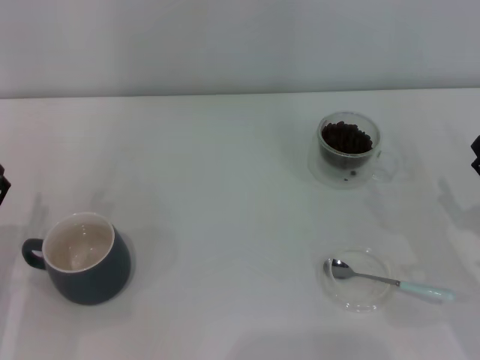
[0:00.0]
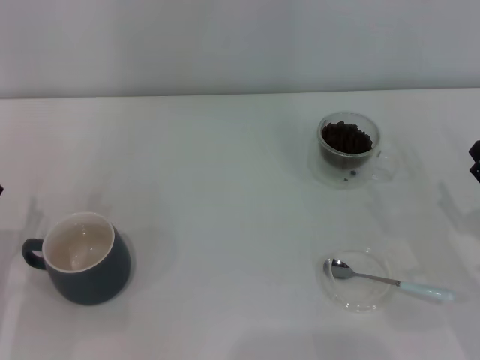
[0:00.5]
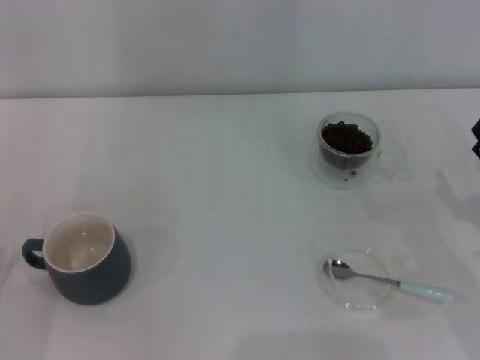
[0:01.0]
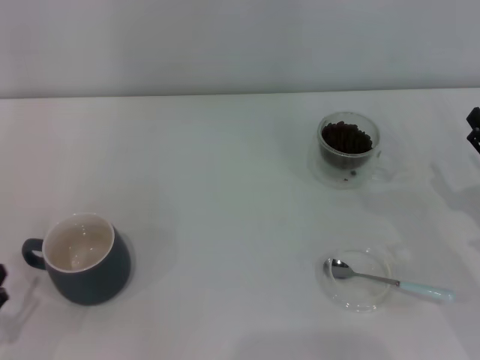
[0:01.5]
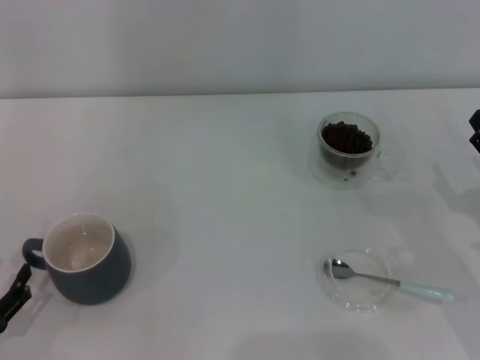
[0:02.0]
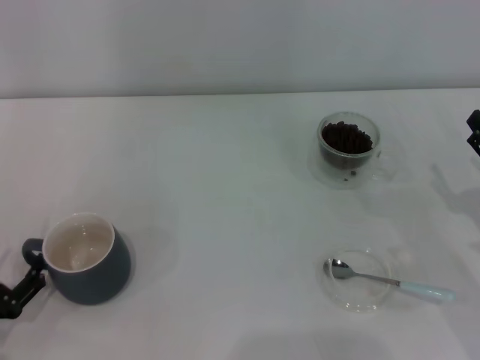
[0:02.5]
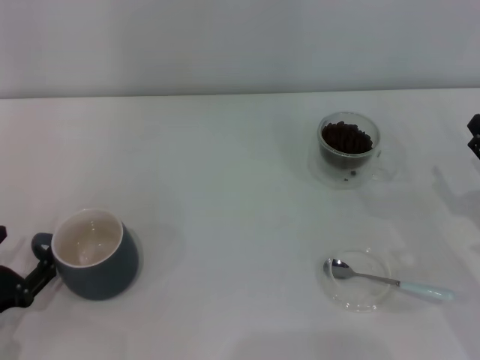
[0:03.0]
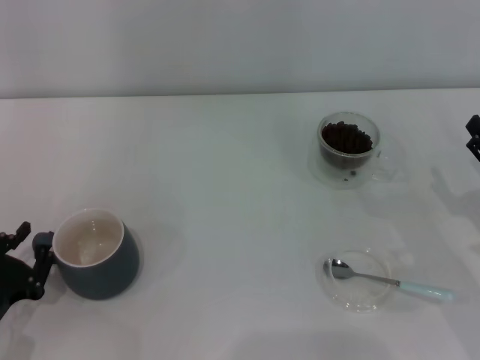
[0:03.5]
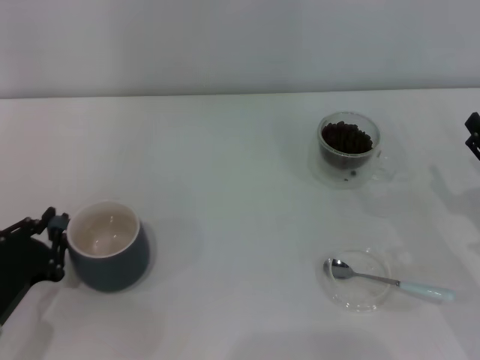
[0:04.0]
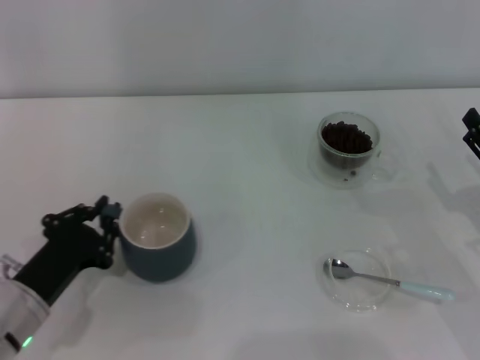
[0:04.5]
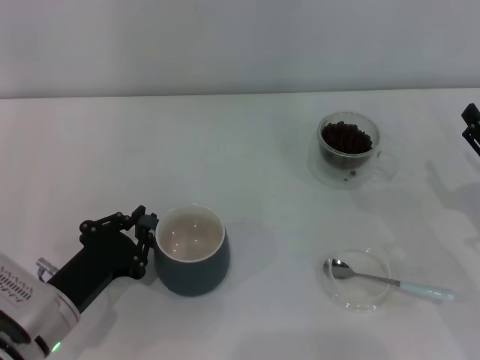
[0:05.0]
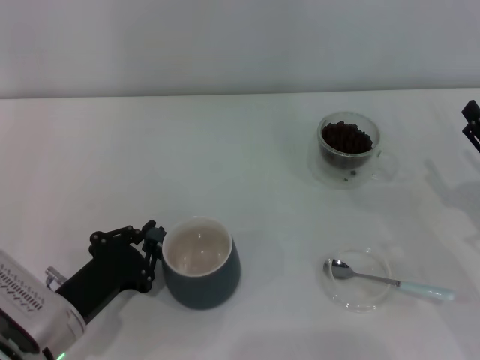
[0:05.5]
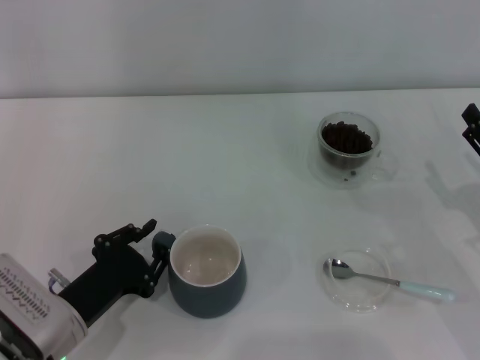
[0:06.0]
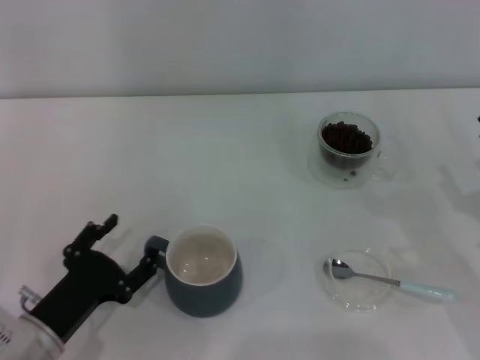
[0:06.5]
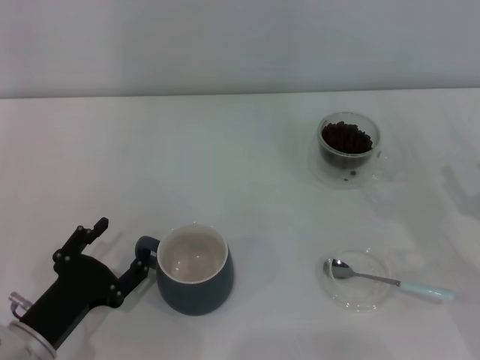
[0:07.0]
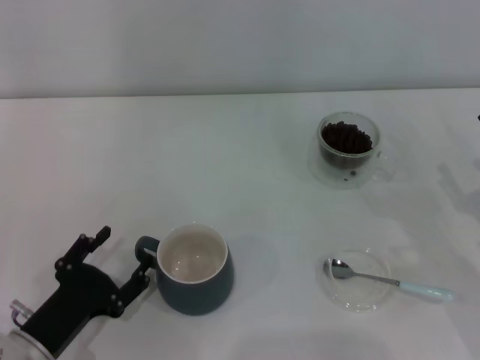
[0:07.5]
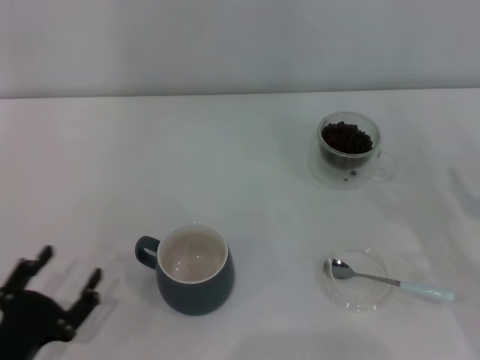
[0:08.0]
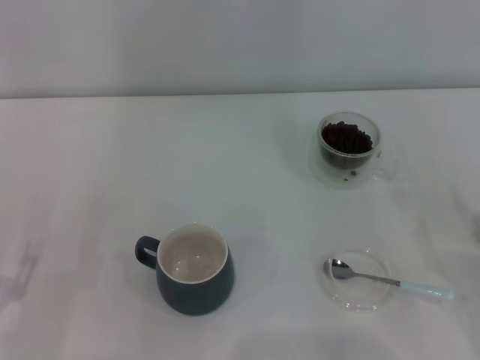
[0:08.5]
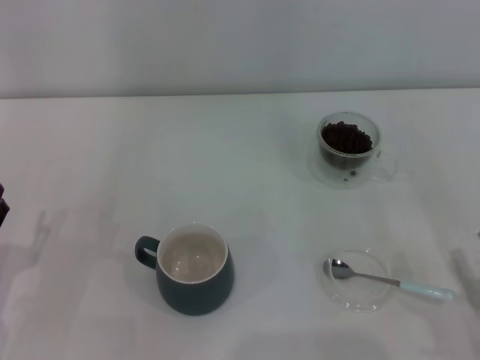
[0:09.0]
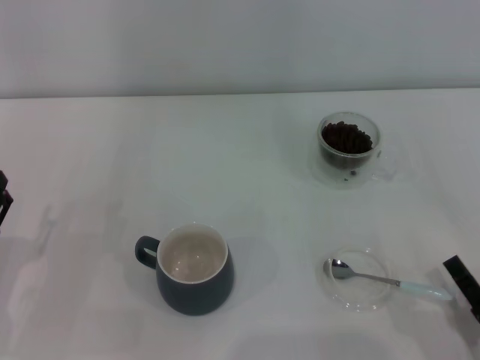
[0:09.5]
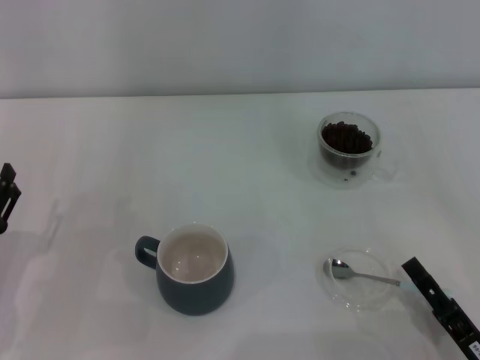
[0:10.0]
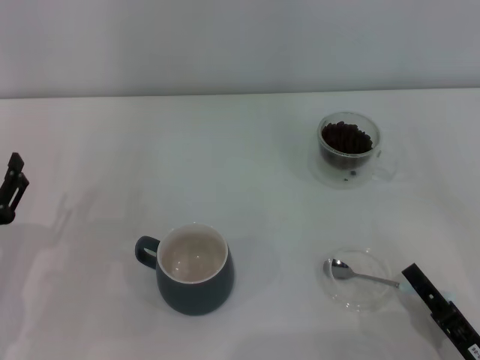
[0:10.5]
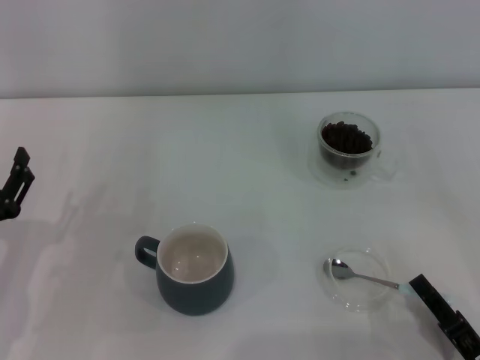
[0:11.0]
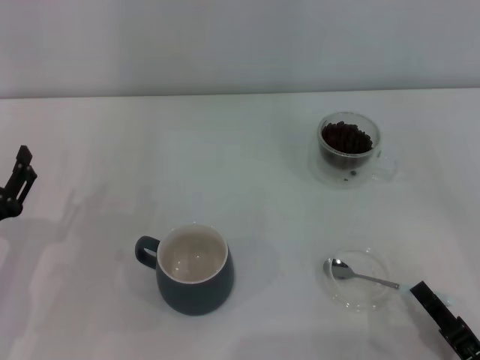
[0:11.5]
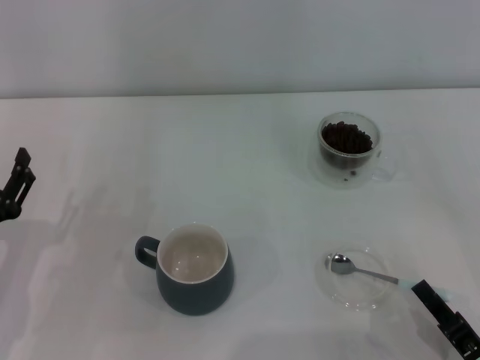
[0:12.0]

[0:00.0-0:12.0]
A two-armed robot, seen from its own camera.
Task of the whole recording: Use a blue spoon to take out the coffee beans from the glass and pour them into the gray cup.
Step, 0:00.0 to 0:07.5: Move the cup to the center of view with the left gripper.
0:00.0 to 0:02.0: The left gripper is displaced backward by about 10 cm.
0:02.0 to 0:04.0: The left gripper is displaced forward by roughly 5 cm, and closes up.
0:04.0 to 0:06.0: The left gripper heads to the right, covering about 5 cm.
0:06.0 to 0:08.0: The left gripper goes roughly 10 cm backward and to the left, and opens.
0:08.0 to 0:10.0: The right gripper moves backward and to the left, roughly 15 cm, while the left gripper heads forward, covering some 5 cm.
0:10.0 to 0:12.0: The right gripper closes its fingers.

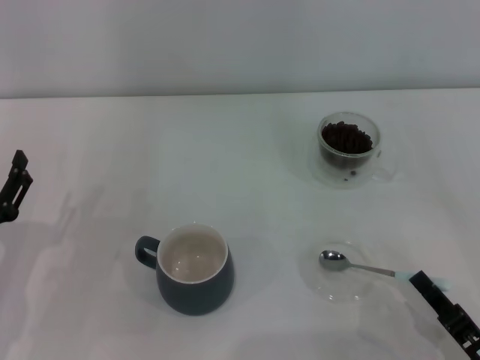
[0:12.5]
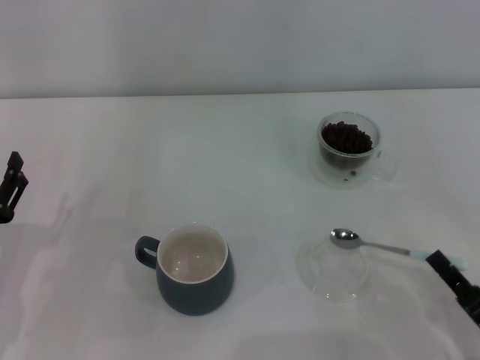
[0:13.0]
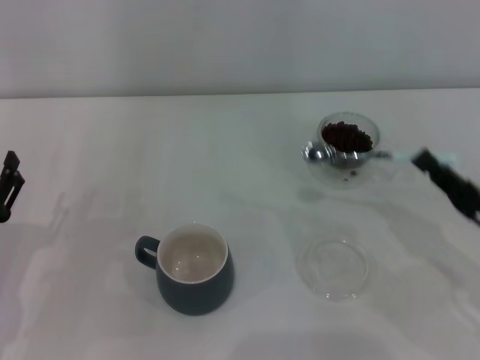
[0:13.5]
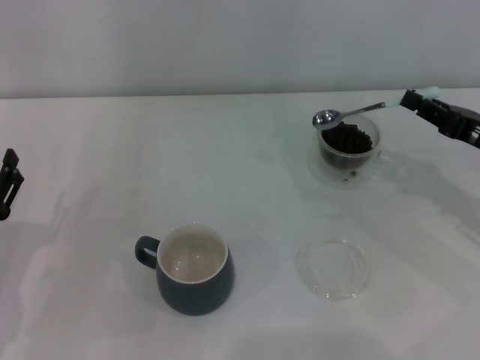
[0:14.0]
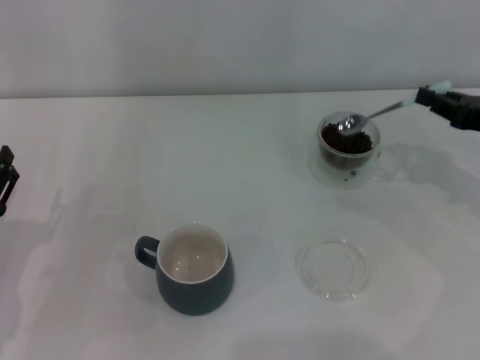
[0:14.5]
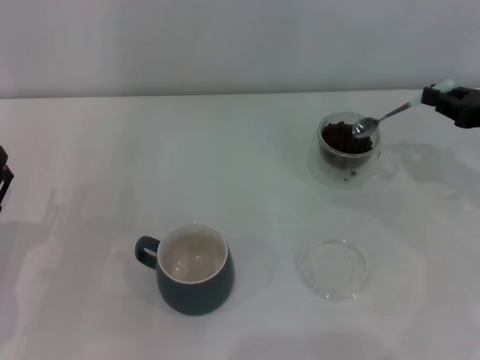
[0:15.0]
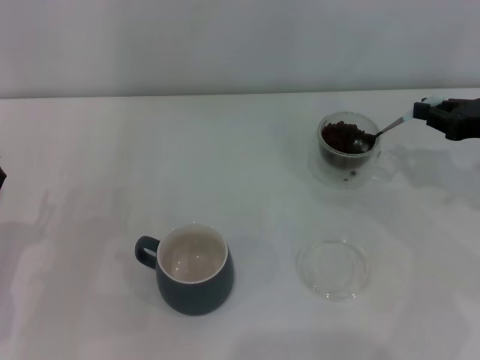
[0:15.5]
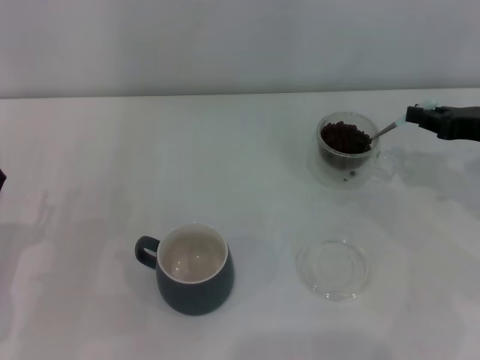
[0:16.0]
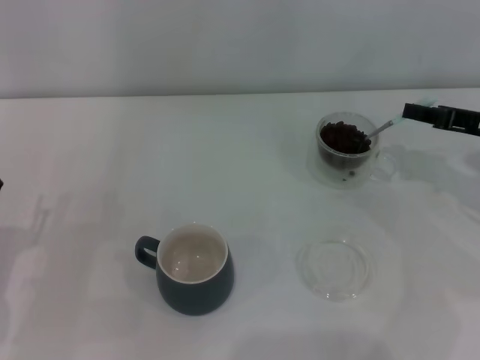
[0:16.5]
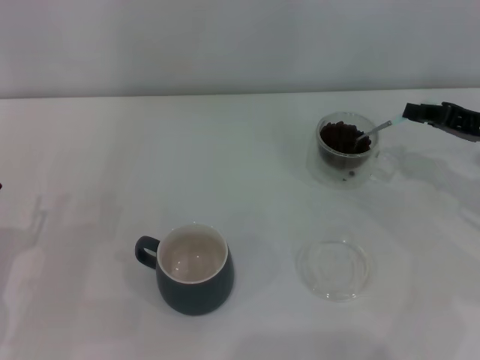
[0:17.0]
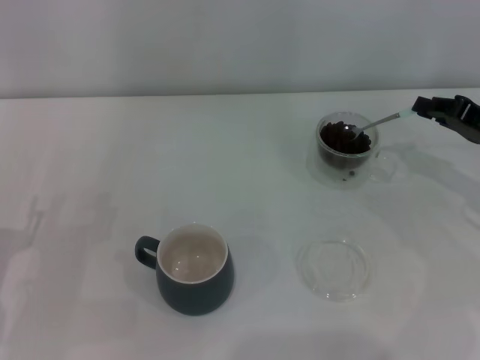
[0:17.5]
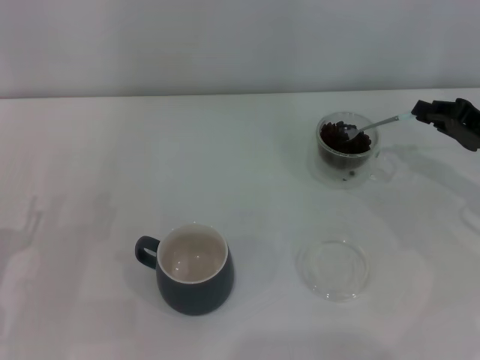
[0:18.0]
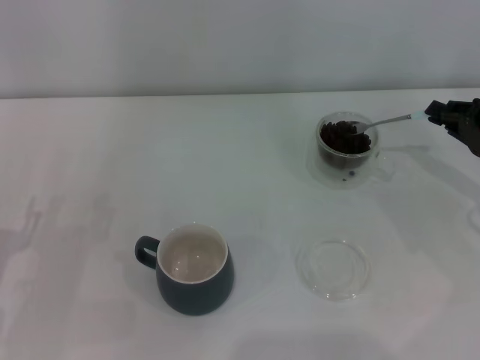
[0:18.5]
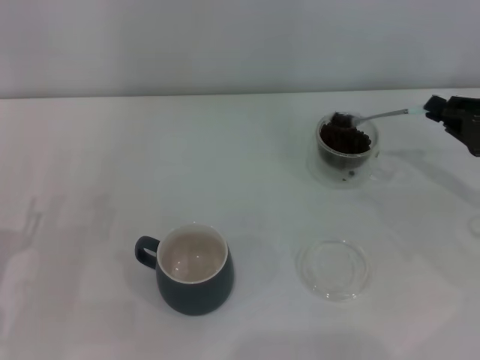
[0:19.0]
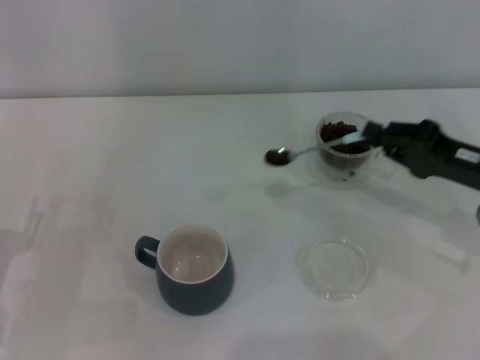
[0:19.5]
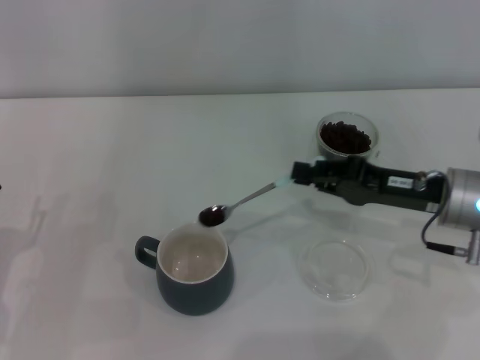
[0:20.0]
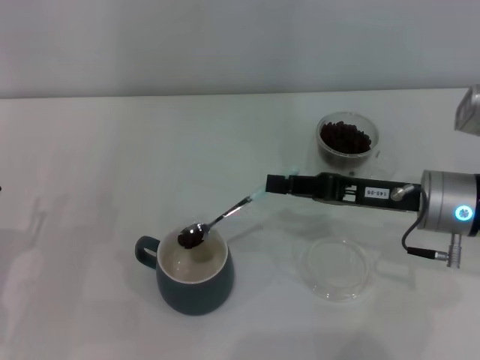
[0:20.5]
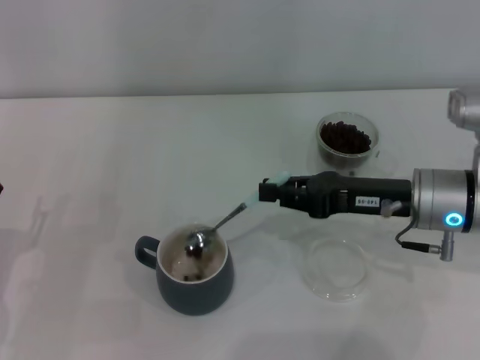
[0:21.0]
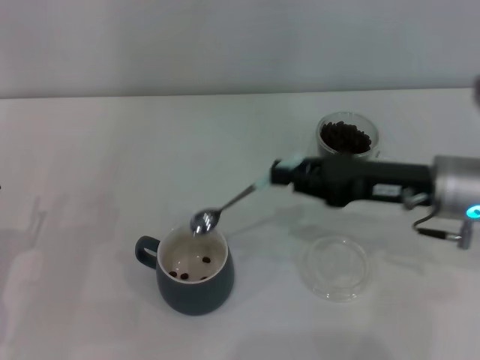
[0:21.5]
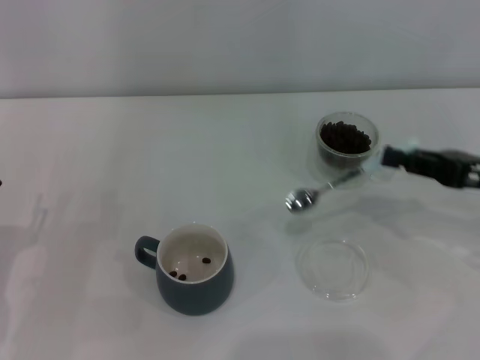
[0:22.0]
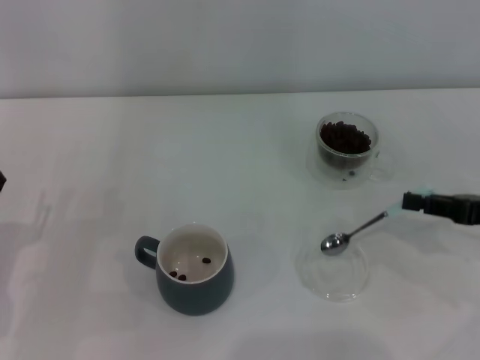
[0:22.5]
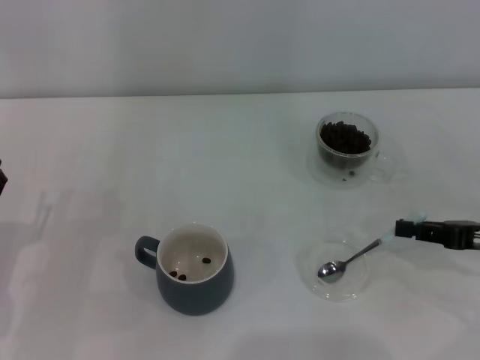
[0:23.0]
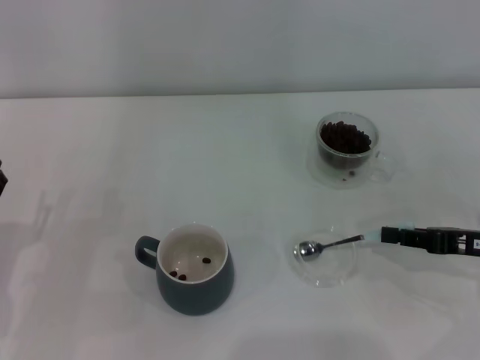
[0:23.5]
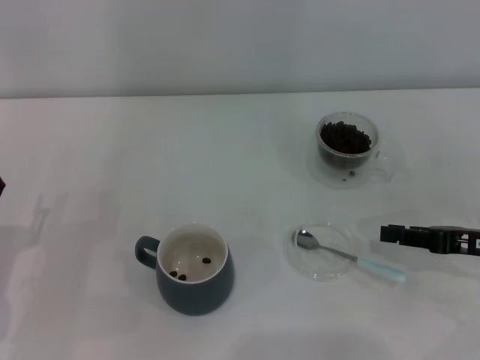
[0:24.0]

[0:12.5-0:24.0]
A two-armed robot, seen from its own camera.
Task of the whole recording: Use a blue spoon to take out the coffee beans from the glass and pour them into the gray cup.
Step, 0:13.5 to 0:21.0: Scoop a spoonful of beans into the cup with the right gripper.
0:12.5 to 0:14.5: The right gripper moves forward, upward and to the right, about 25 cm.
0:14.5 to 0:16.5: The grippers move only a little.
0:18.5 to 0:20.0: The right gripper goes some 10 cm to the left.
0:20.0 to 0:22.0: The right gripper shifts about 10 cm to the right.
0:22.0 to 0:24.0: The right gripper travels downward by approximately 5 cm.

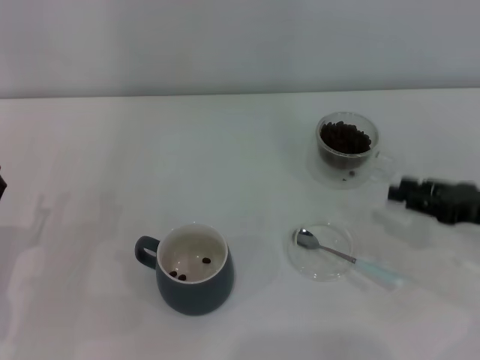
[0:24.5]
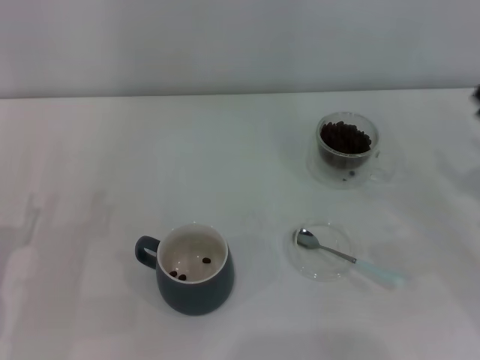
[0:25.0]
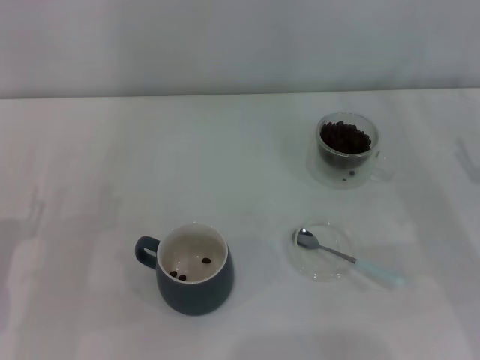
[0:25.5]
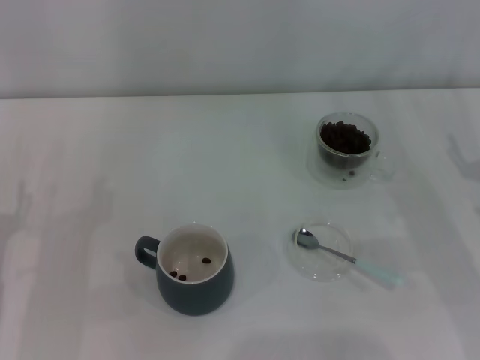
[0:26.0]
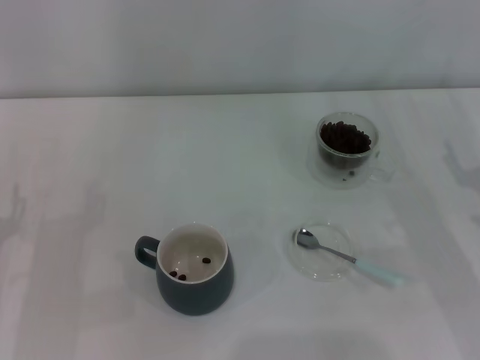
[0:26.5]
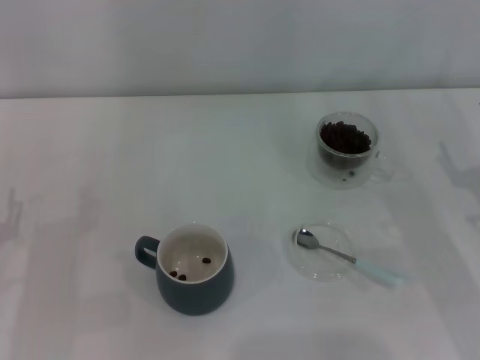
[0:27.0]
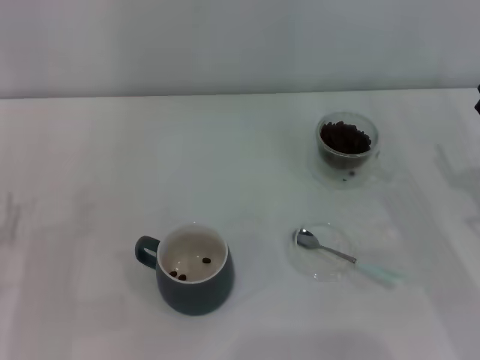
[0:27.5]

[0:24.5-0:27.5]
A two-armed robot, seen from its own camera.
Task of the whole recording: Use a blue spoon to take out the coffee beans from the glass and pour them into the gray cup.
0:24.5 to 0:26.0: The right gripper opens.
